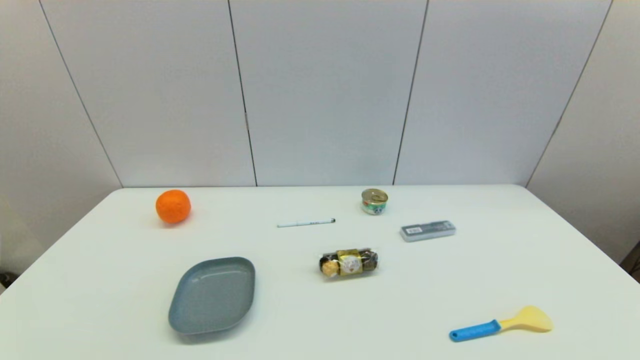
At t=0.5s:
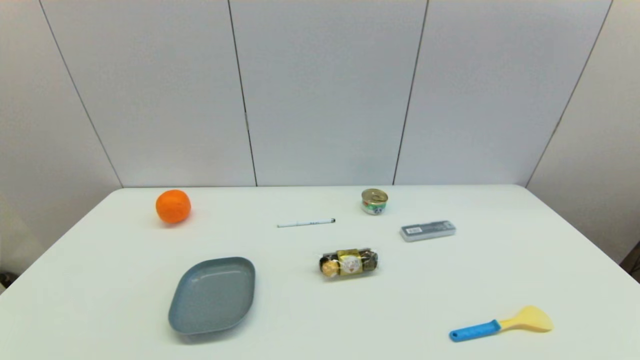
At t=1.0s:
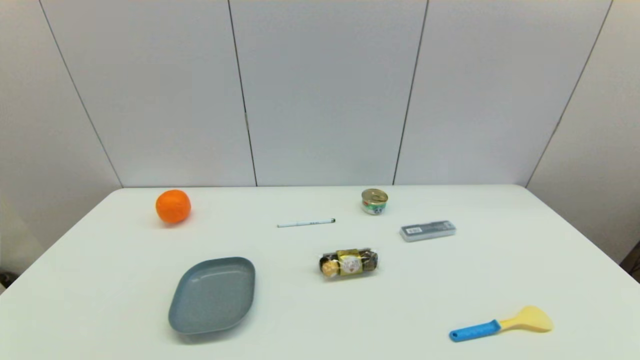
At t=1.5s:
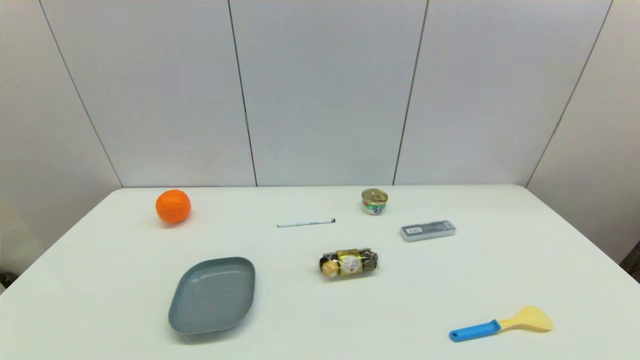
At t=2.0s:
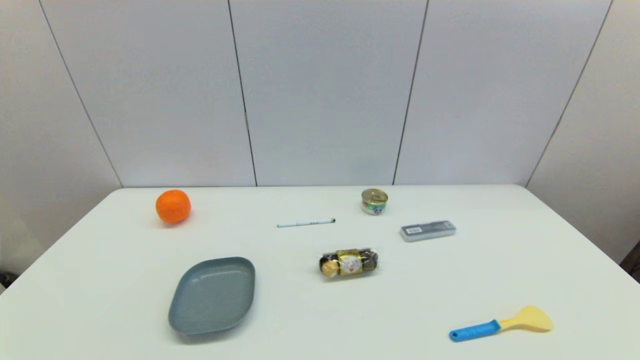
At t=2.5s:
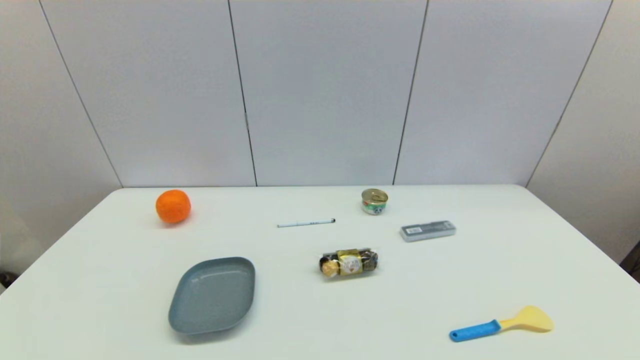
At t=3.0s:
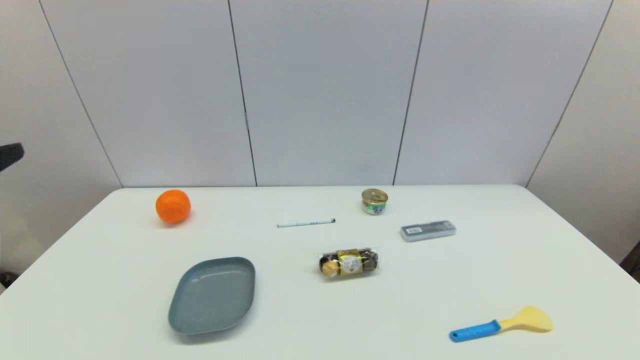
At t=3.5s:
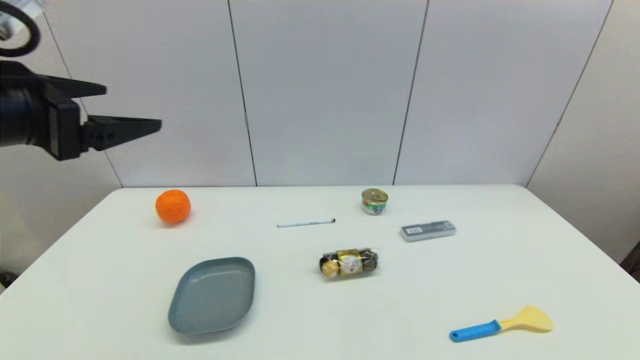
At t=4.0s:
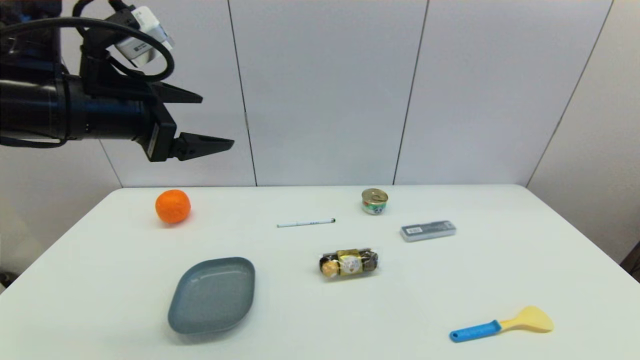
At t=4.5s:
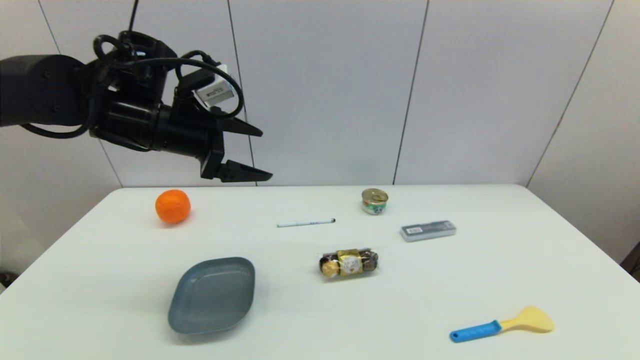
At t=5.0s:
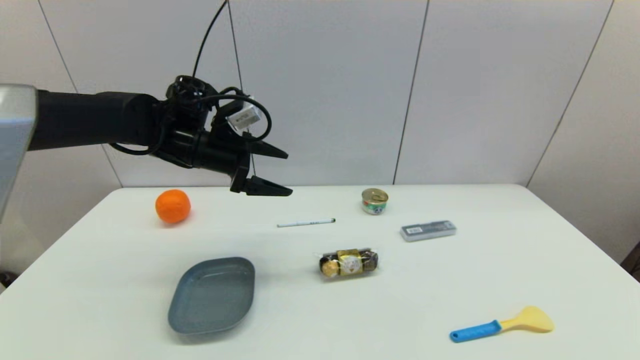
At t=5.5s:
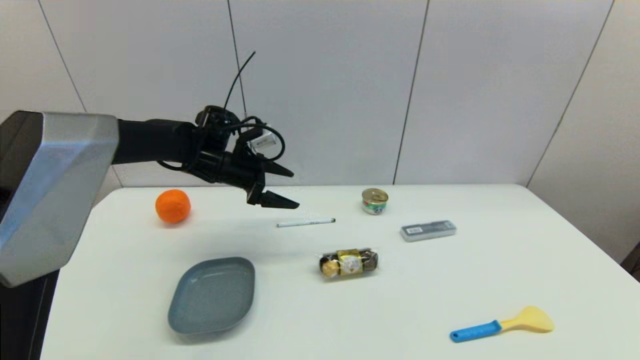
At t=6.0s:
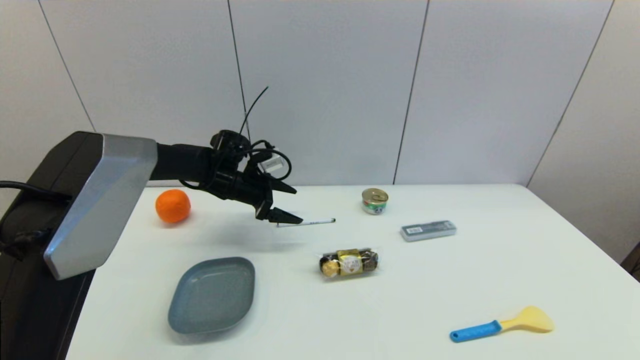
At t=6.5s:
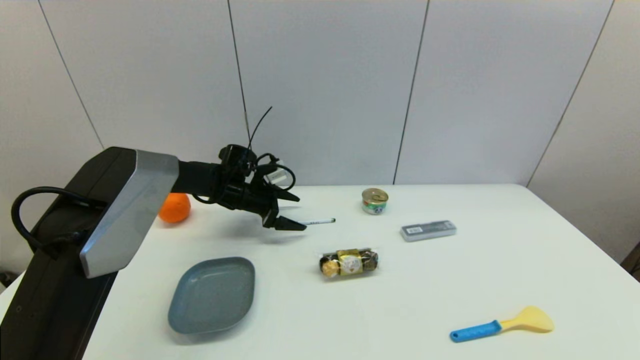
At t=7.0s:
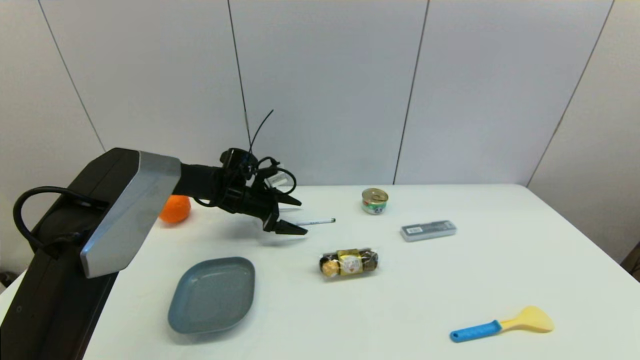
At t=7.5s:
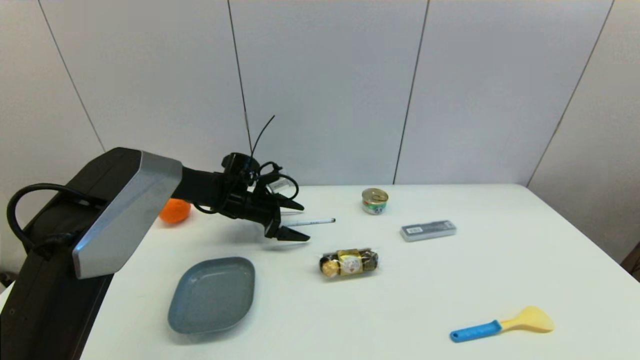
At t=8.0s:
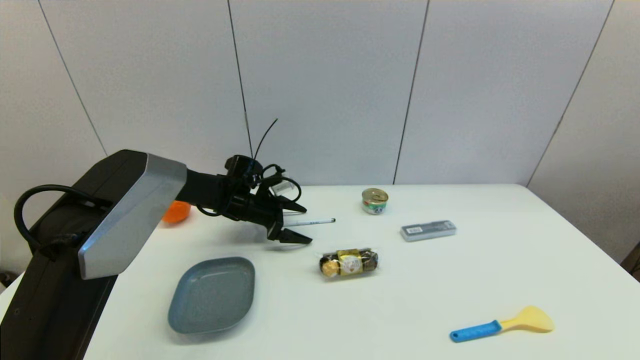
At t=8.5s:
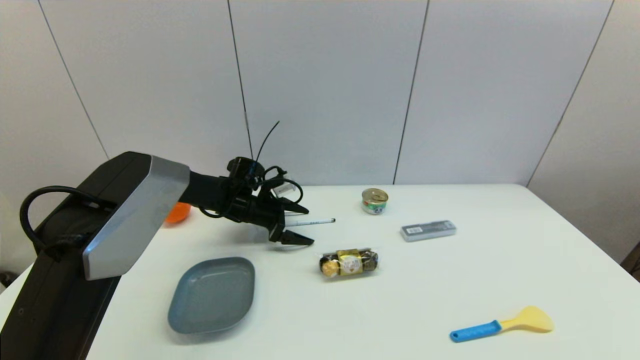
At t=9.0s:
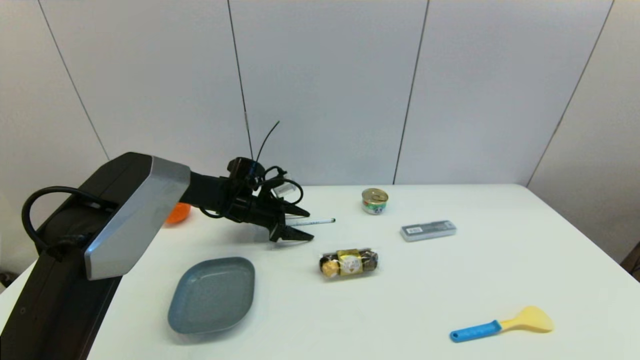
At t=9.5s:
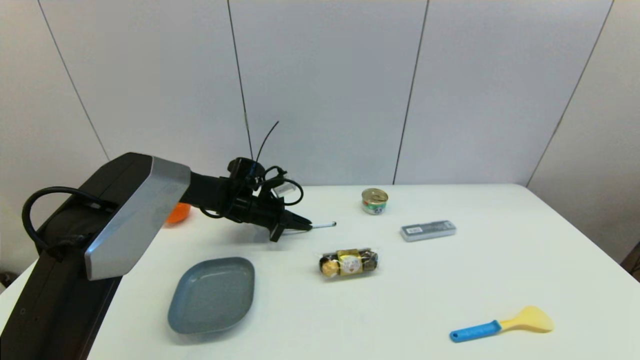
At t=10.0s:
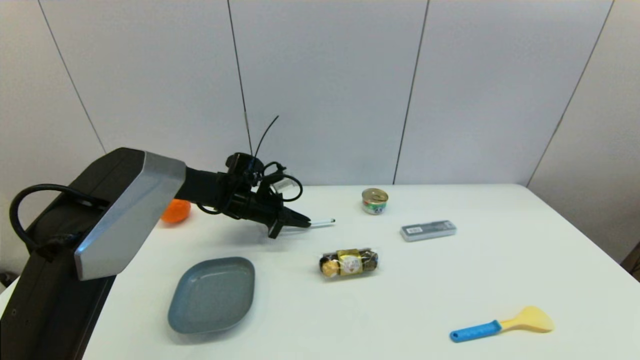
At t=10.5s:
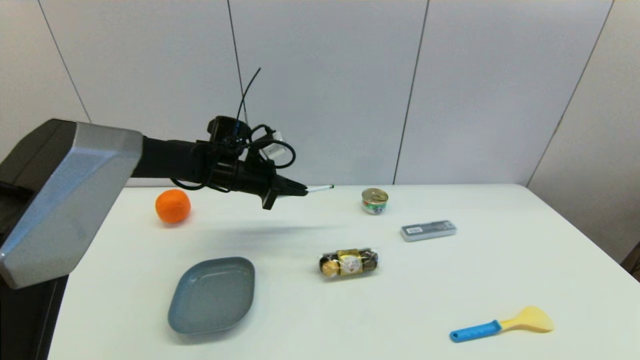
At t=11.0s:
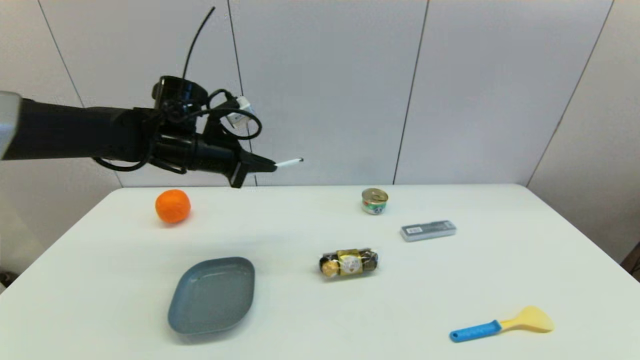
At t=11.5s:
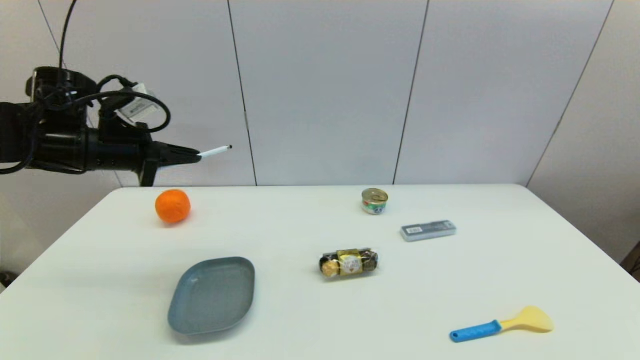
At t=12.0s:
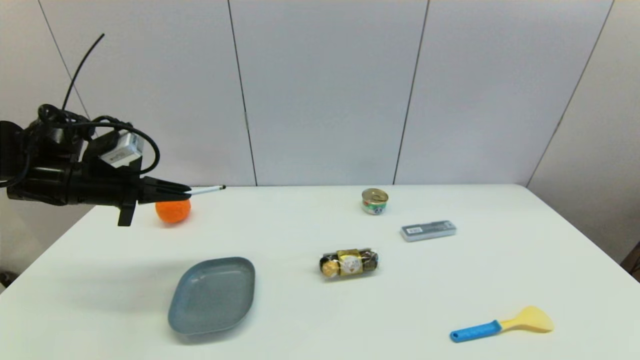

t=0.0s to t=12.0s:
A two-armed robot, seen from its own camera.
Task of the whole recording: put the pen in the designated position.
Step, t=2.5s to t=9.5s: Grasp the sign pen with left gripper.
t=2.0s to t=4.0s: The left gripper shifts approximately 35 cm forward and upward.
t=4.0s to t=6.0s: The left gripper heads downward and forward, covering roughly 30 cm.
t=6.0s to t=8.0s: The left gripper heads downward, covering roughly 5 cm.
t=8.0s to t=10.0s: The left gripper closes up.
t=10.0s to t=12.0s: The left gripper moves to the left, upward and backward, about 25 cm.

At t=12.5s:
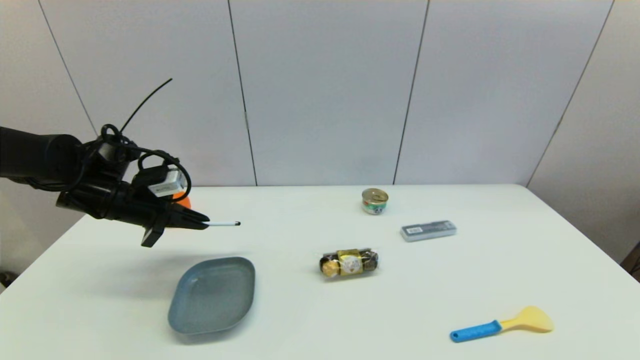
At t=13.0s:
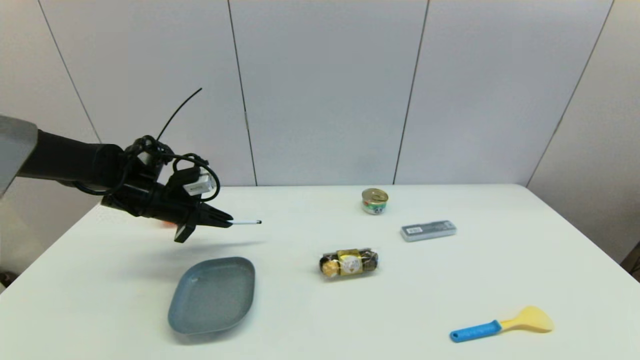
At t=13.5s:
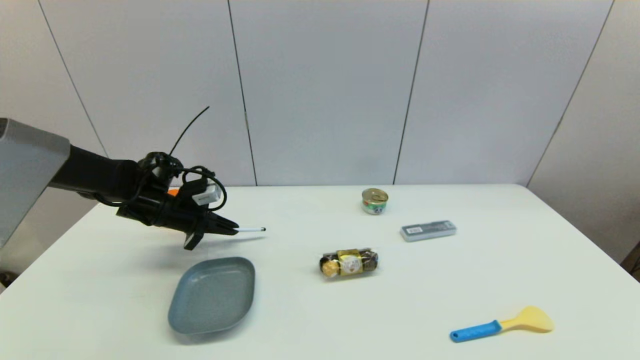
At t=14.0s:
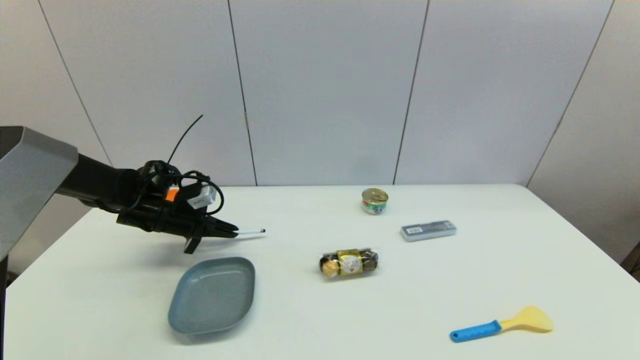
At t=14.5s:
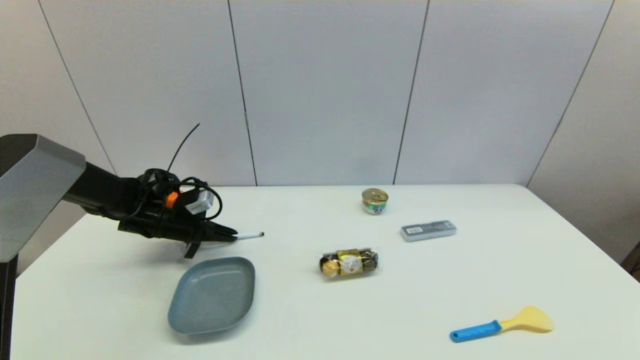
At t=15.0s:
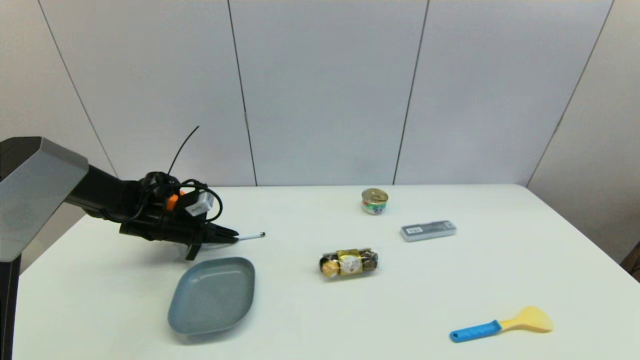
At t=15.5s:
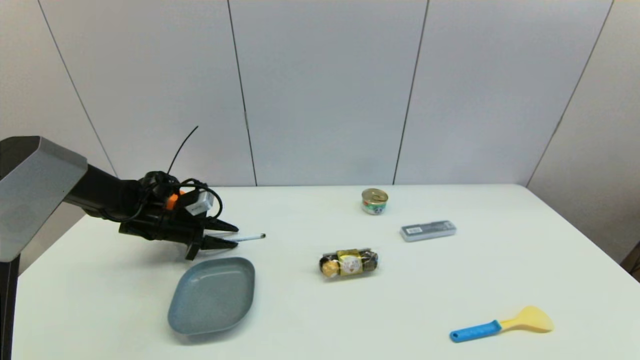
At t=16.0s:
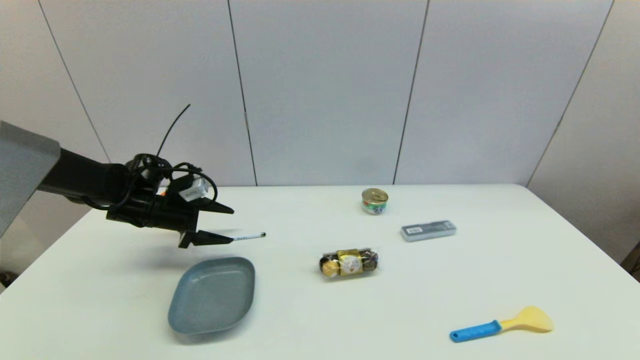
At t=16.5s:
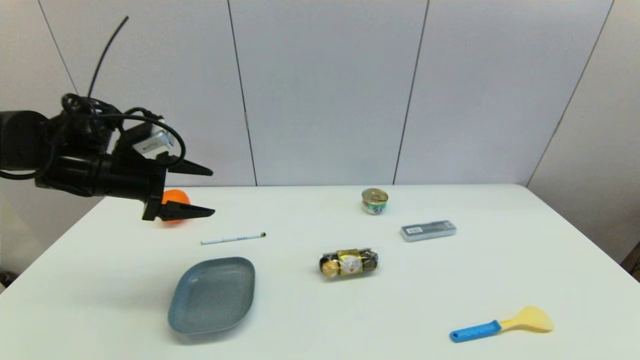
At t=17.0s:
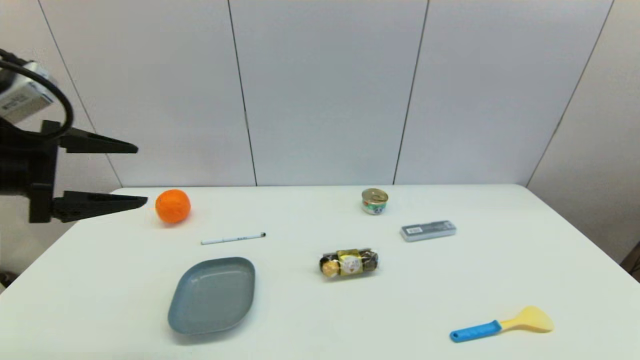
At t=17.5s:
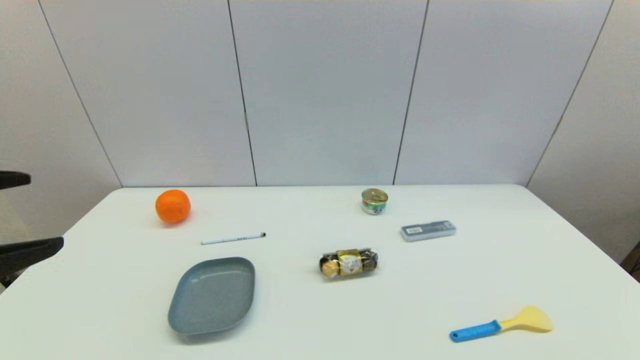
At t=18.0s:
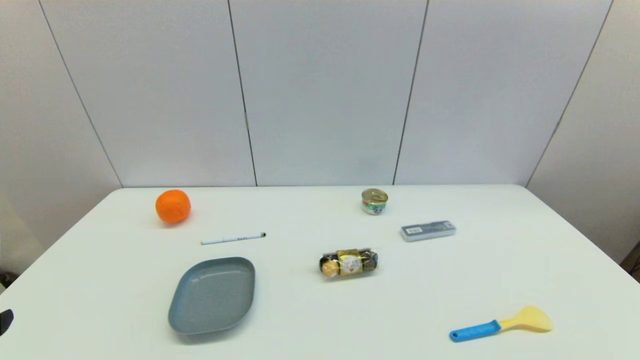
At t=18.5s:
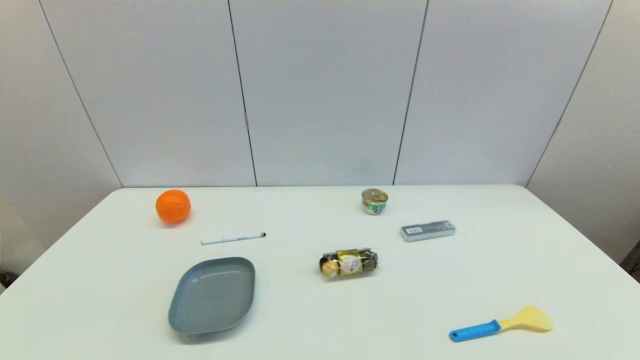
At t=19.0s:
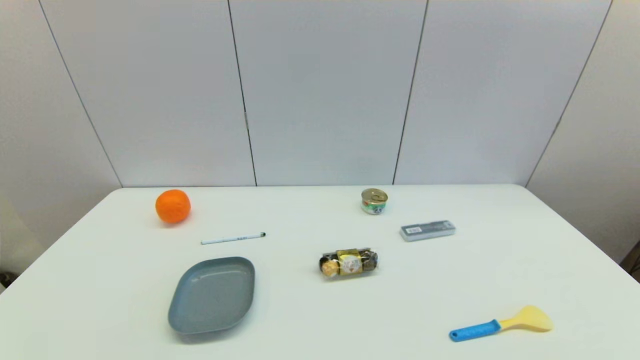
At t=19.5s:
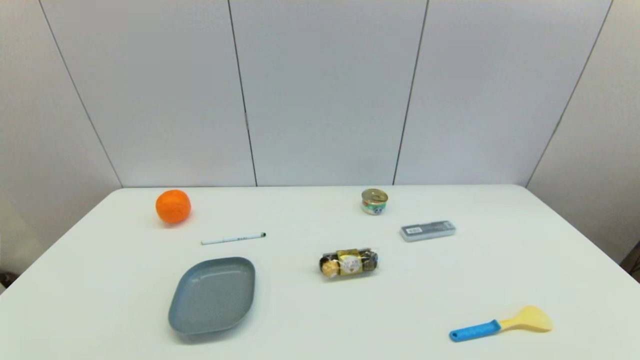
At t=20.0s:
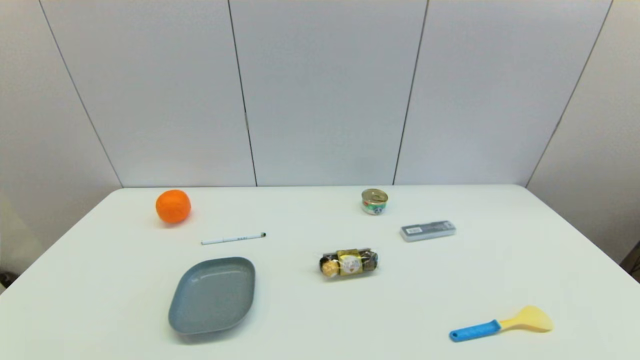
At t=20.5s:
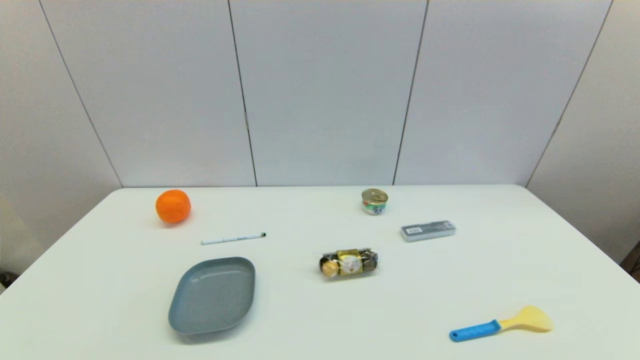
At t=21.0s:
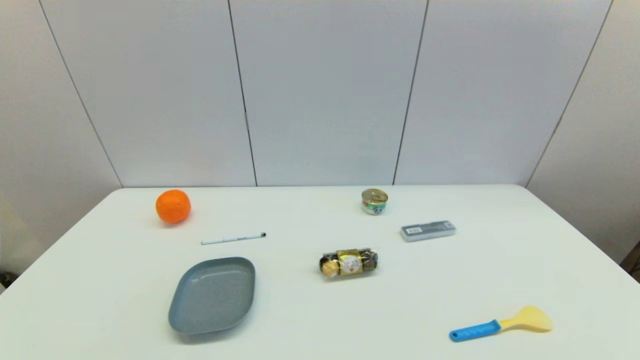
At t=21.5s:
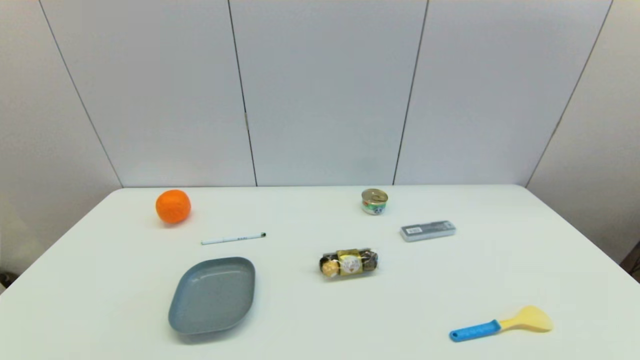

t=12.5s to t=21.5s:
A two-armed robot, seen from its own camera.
Task of the whole recording: put the pen in the designated position.
Step, t=12.5s to t=15.5s: Place the sign pen on the table with left gripper.
t=12.5s to t=14.5s: The left gripper moves downward, about 10 cm.
t=14.5s to t=17.0s: The left gripper shifts about 30 cm upward and backward, and opens its fingers.
t=17.0s to t=19.5s: The left gripper moves backward and downward, some 30 cm.
t=19.5s to t=21.5s: Neither gripper changes place.
